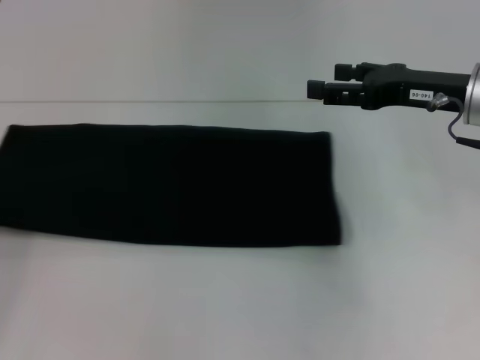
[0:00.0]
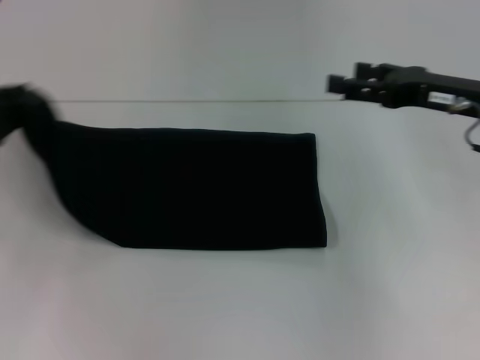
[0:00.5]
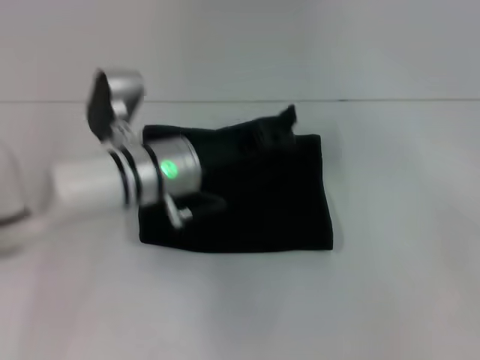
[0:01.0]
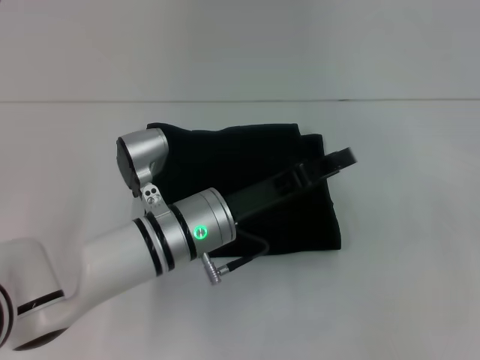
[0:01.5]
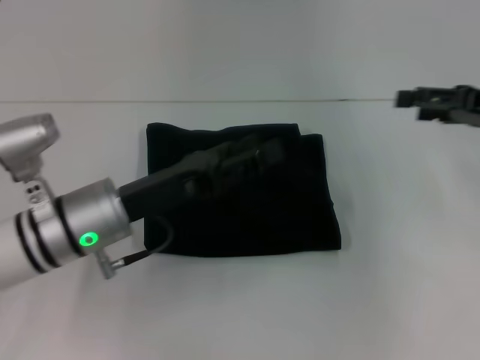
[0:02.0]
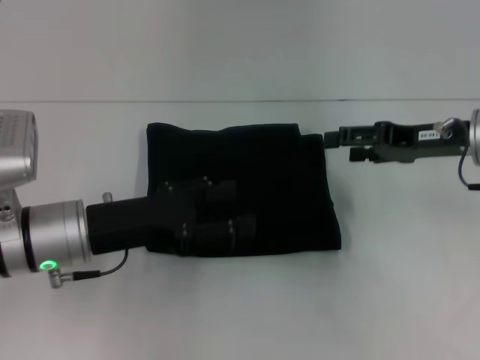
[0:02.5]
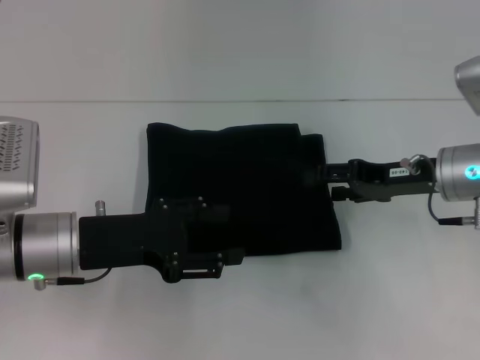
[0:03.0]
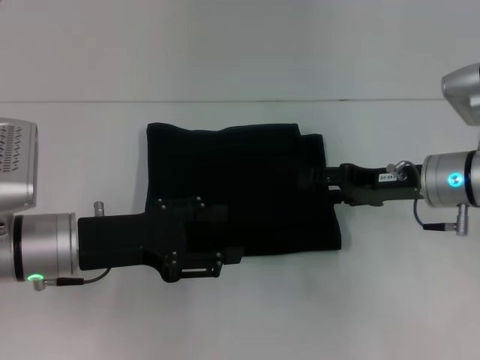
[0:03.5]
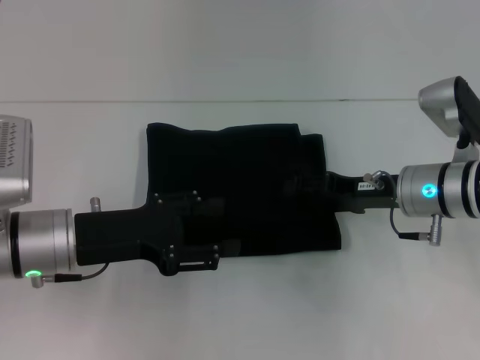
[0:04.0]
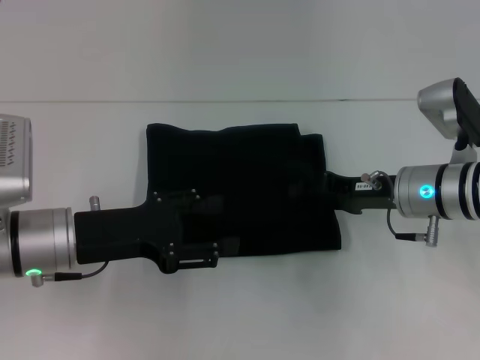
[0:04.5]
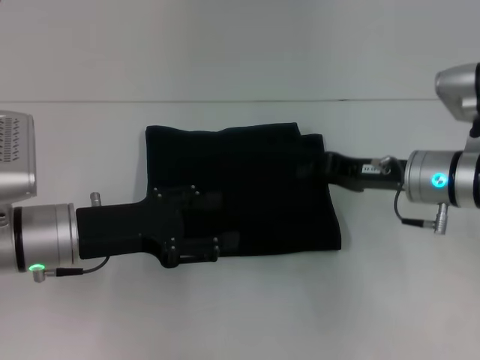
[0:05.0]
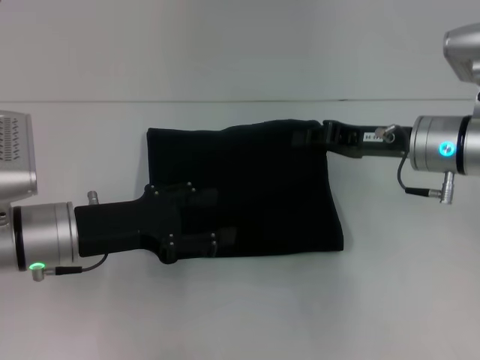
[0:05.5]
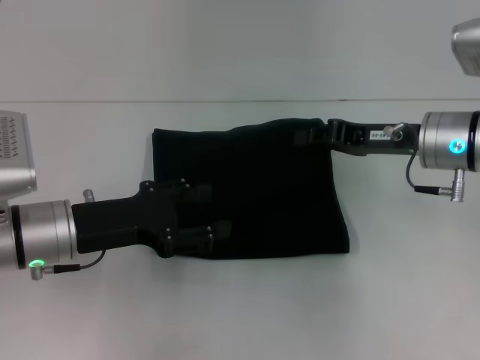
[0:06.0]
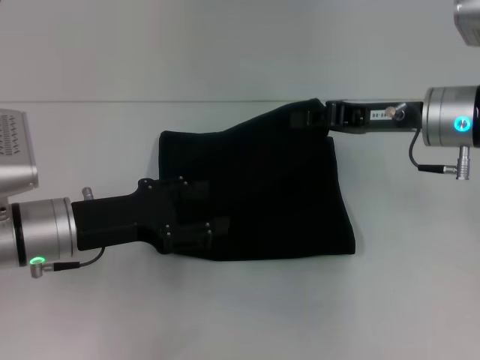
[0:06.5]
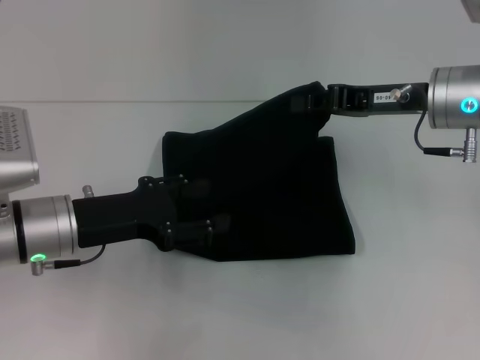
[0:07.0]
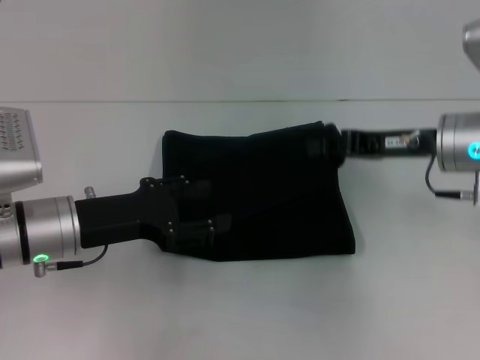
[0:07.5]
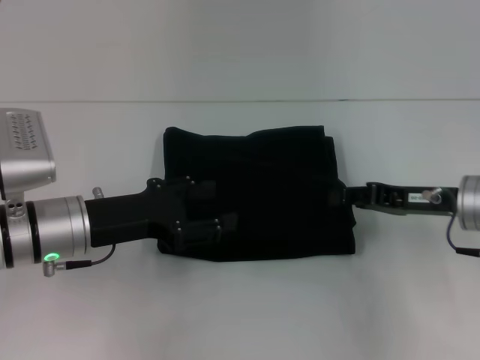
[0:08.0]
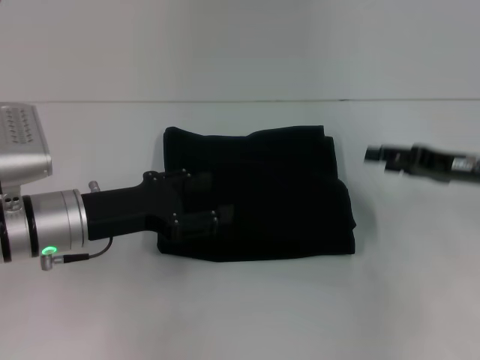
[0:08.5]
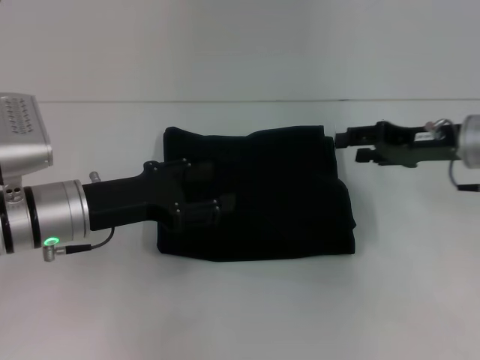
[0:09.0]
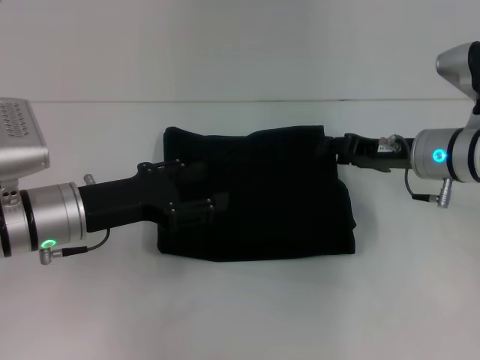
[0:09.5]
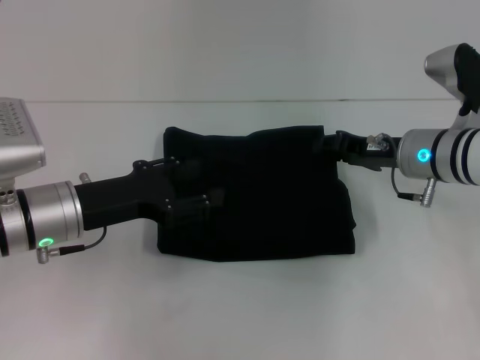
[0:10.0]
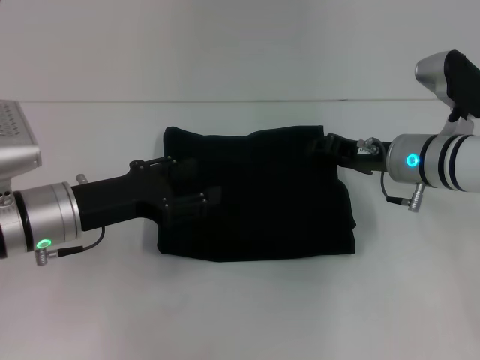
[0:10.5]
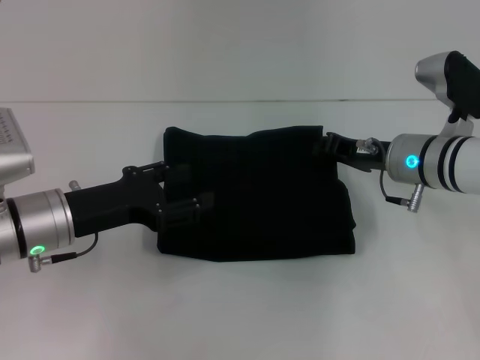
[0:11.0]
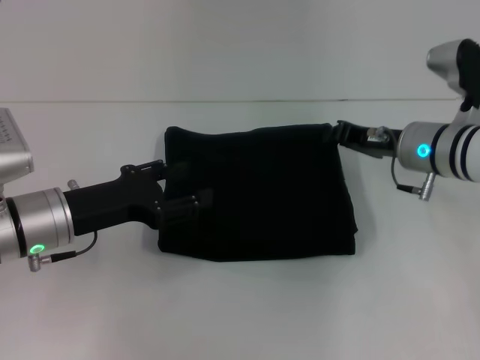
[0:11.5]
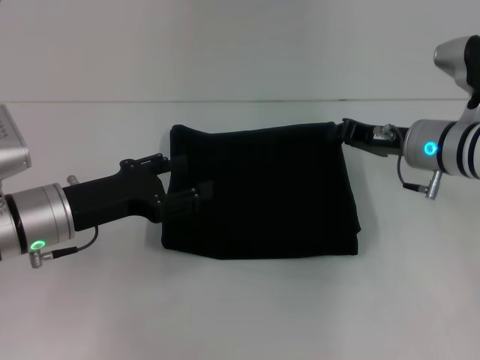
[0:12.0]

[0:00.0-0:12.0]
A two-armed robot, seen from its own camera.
0:00.0 to 0:02.0: The right gripper is displaced to the right by some 10 cm, while the left gripper moves to the right, approximately 25 cm, and opens its fingers.
0:02.0 to 0:04.0: The right gripper moves to the left and downward, about 15 cm.
0:04.0 to 0:06.0: The right gripper goes some 5 cm upward, and closes its fingers.
0:06.0 to 0:08.0: The right gripper changes place by roughly 5 cm.
0:08.0 to 0:10.0: The right gripper goes roughly 5 cm forward, and opens its fingers.
0:10.0 to 0:12.0: The right gripper closes up.

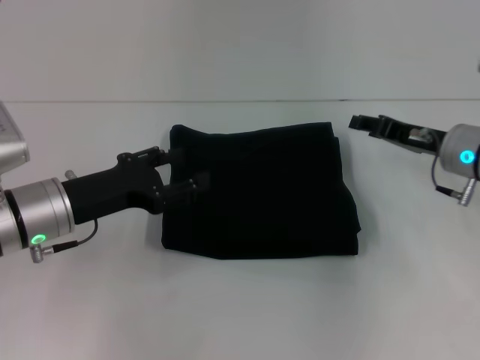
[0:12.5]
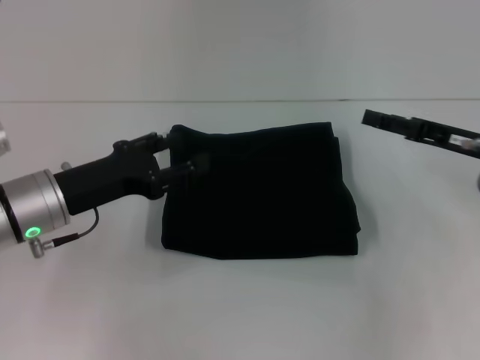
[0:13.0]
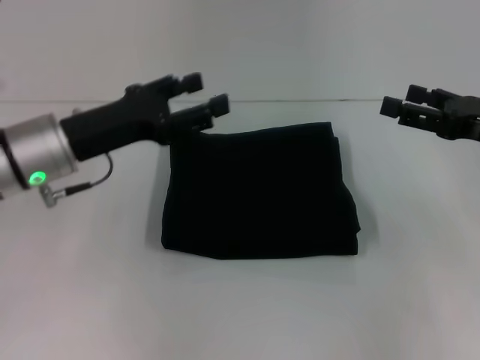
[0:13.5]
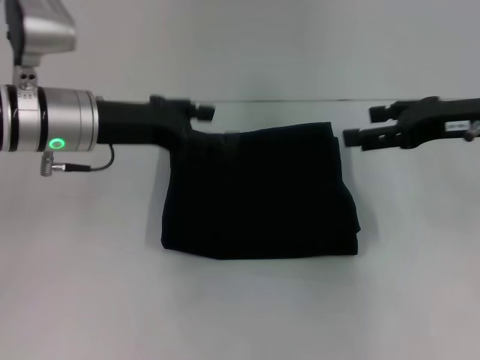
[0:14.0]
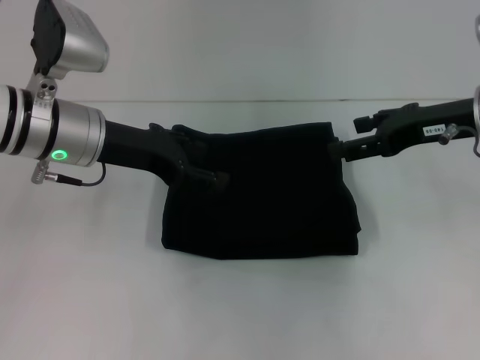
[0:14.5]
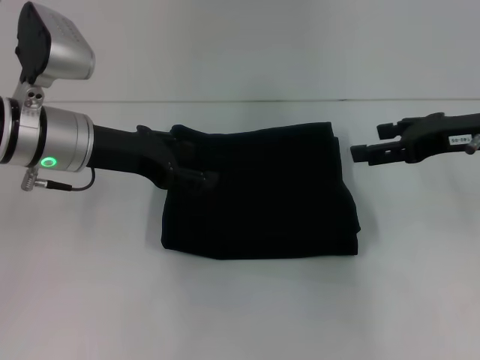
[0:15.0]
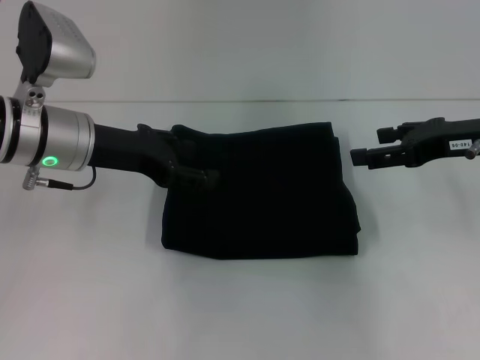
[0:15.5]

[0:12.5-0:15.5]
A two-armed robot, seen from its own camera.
0:12.5 to 0:14.0: The left gripper travels upward and forward by some 10 cm. The right gripper moves upward, some 10 cm, and opens.
0:14.0 to 0:15.5: There are only small adjustments of the grippers.
